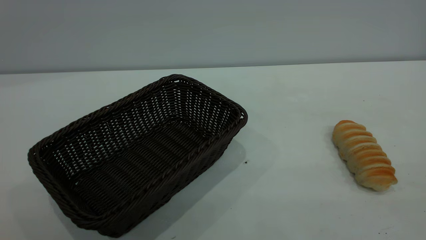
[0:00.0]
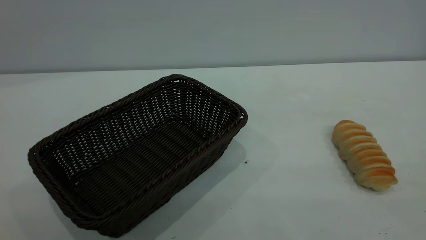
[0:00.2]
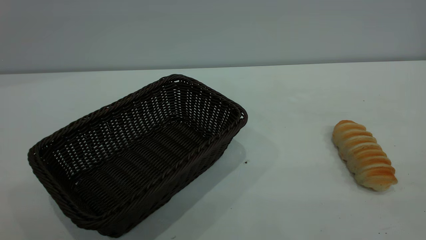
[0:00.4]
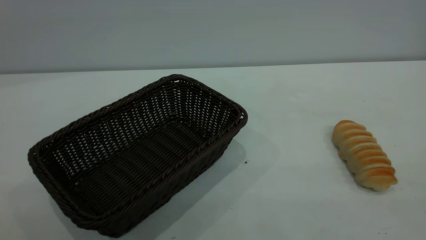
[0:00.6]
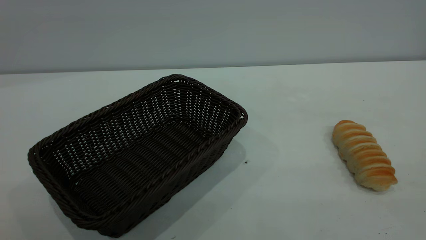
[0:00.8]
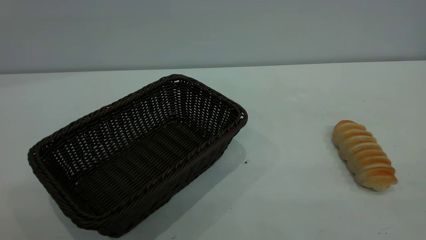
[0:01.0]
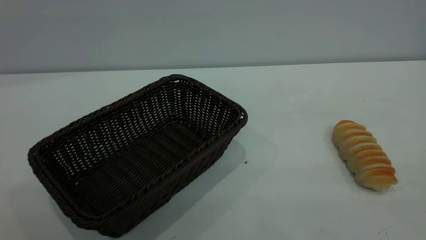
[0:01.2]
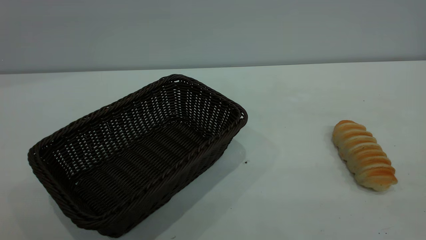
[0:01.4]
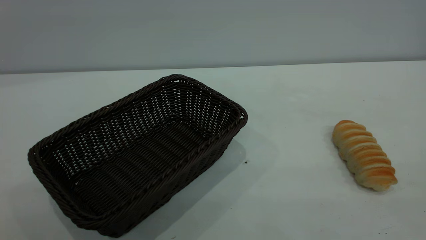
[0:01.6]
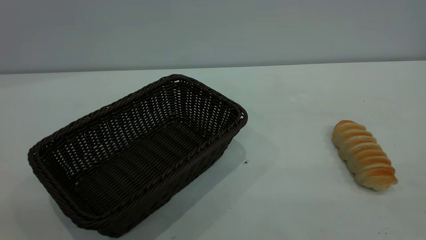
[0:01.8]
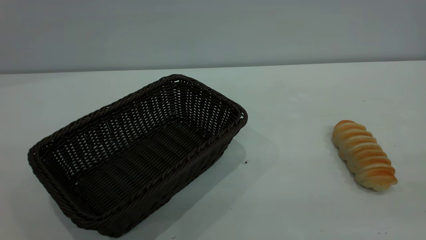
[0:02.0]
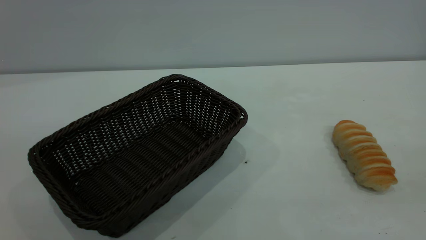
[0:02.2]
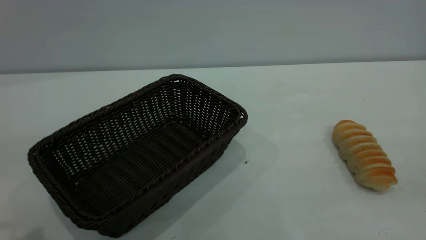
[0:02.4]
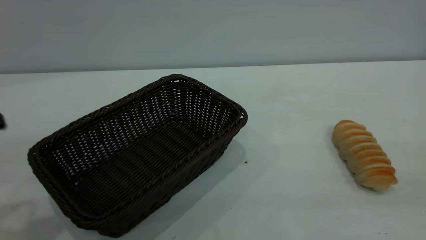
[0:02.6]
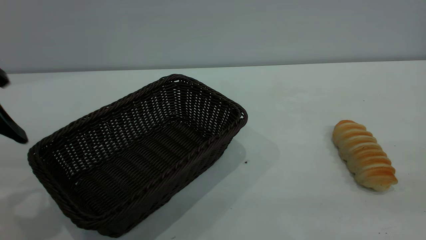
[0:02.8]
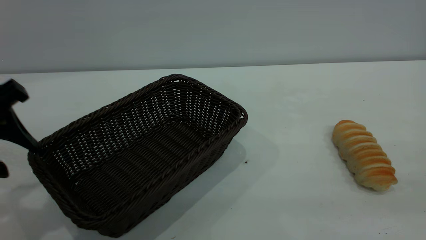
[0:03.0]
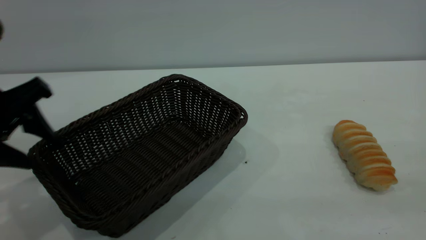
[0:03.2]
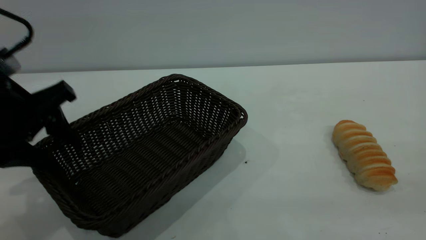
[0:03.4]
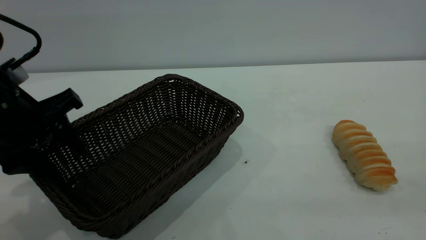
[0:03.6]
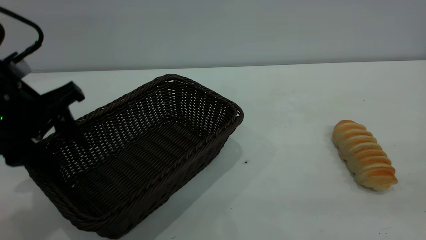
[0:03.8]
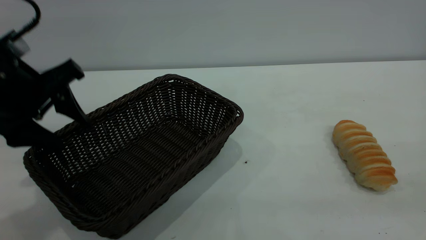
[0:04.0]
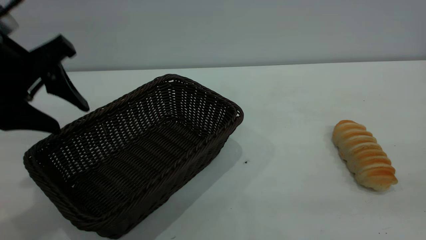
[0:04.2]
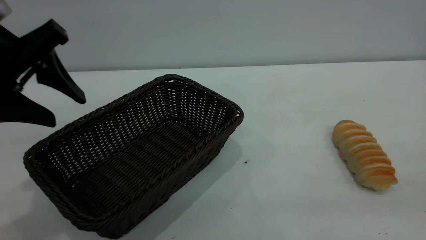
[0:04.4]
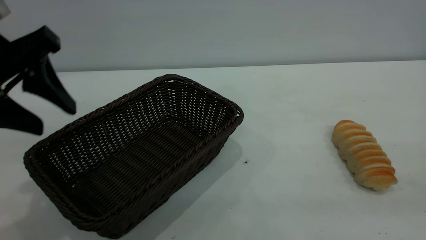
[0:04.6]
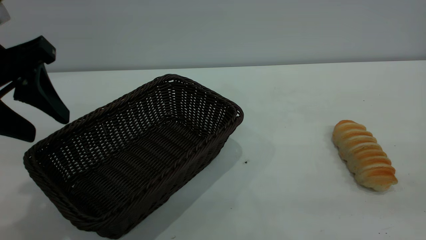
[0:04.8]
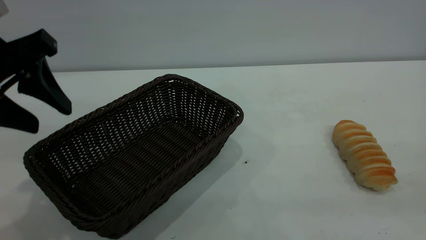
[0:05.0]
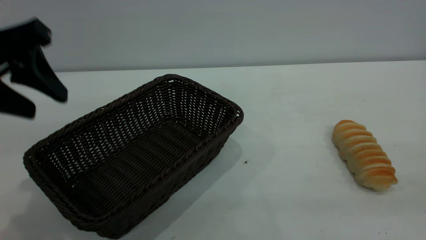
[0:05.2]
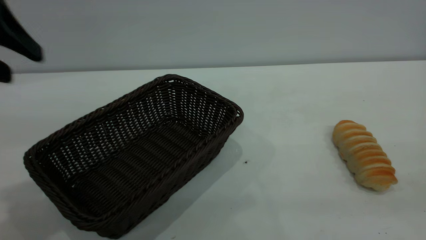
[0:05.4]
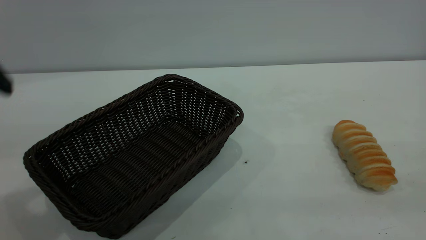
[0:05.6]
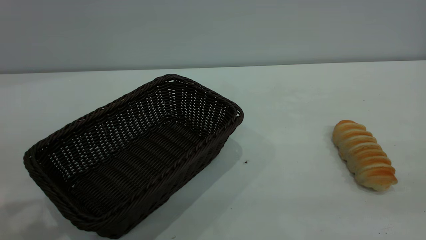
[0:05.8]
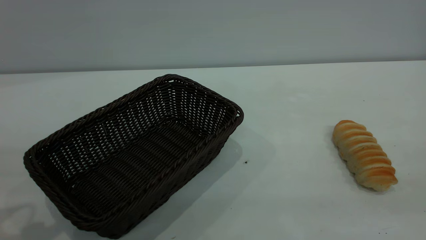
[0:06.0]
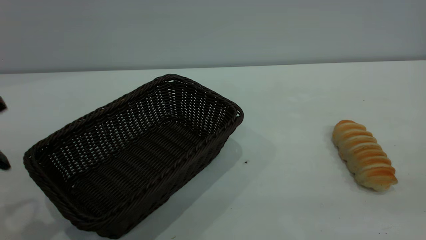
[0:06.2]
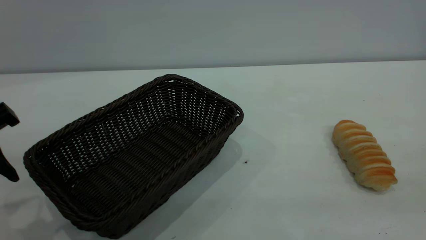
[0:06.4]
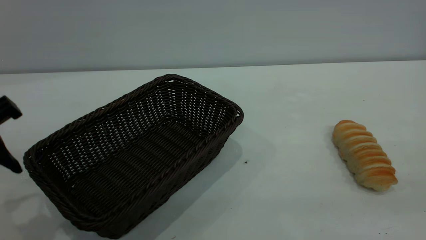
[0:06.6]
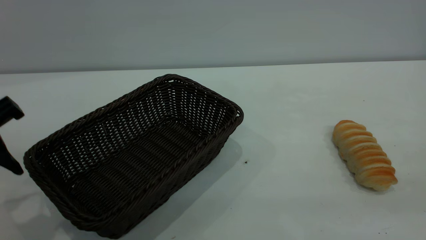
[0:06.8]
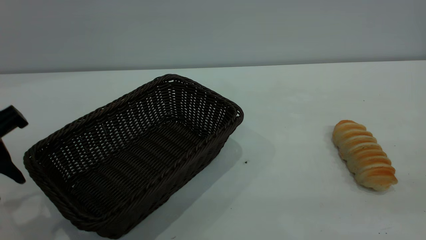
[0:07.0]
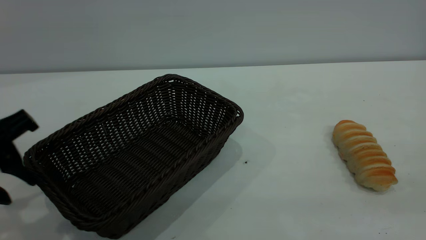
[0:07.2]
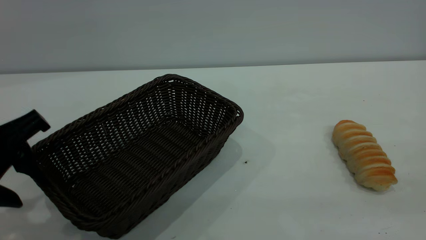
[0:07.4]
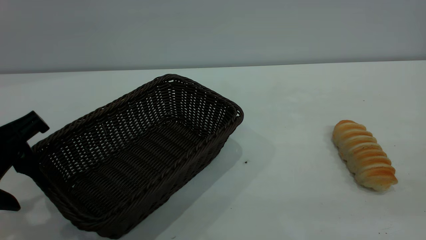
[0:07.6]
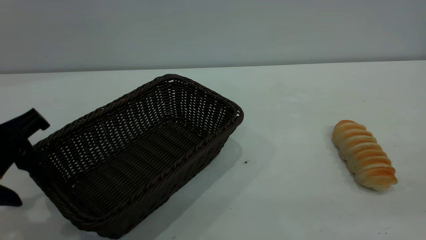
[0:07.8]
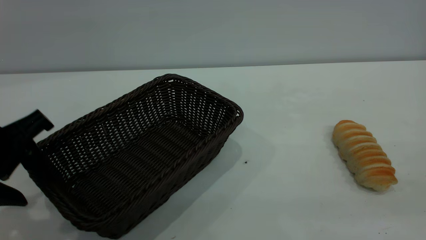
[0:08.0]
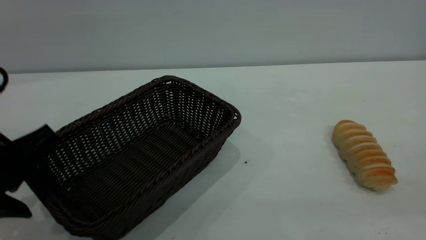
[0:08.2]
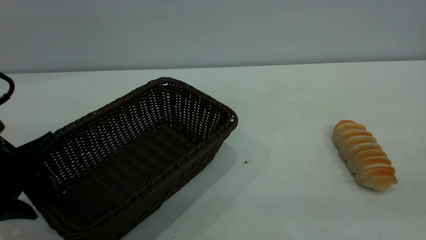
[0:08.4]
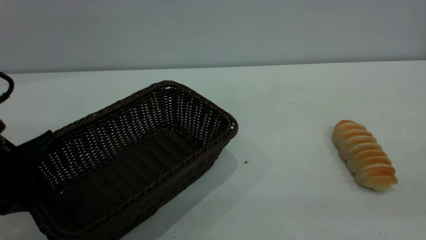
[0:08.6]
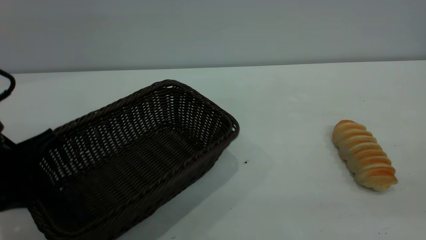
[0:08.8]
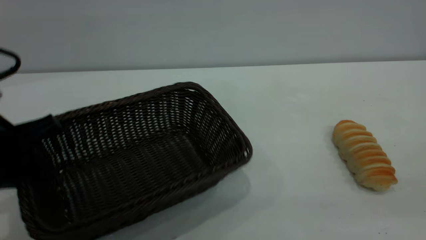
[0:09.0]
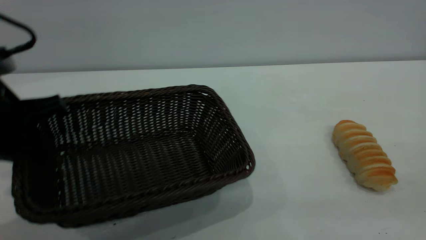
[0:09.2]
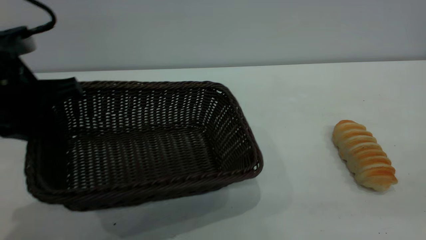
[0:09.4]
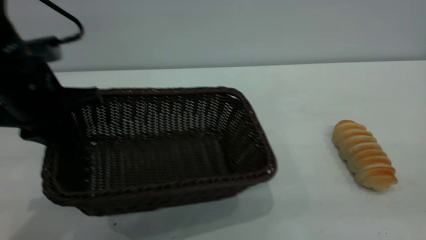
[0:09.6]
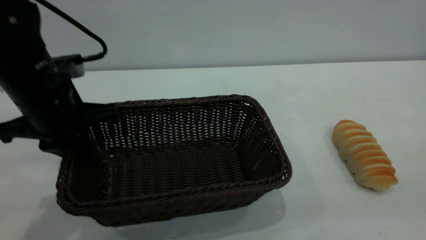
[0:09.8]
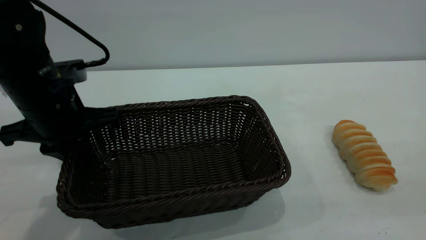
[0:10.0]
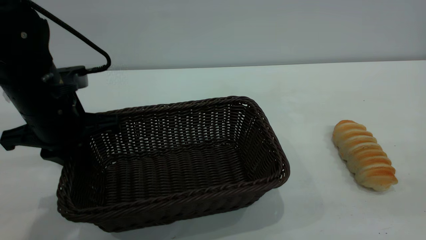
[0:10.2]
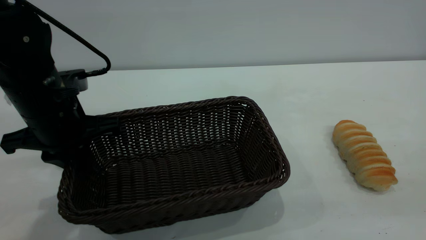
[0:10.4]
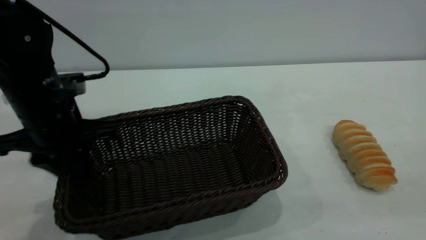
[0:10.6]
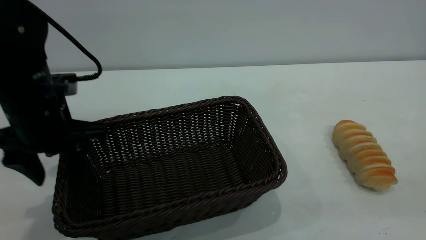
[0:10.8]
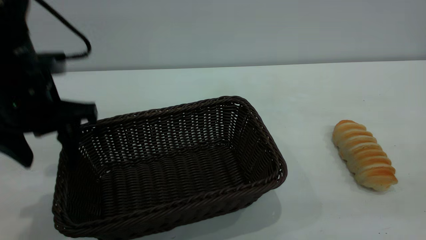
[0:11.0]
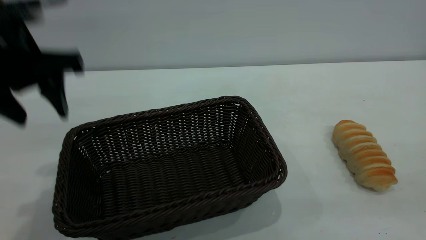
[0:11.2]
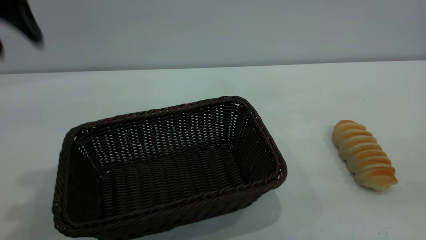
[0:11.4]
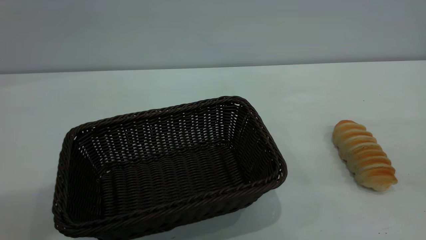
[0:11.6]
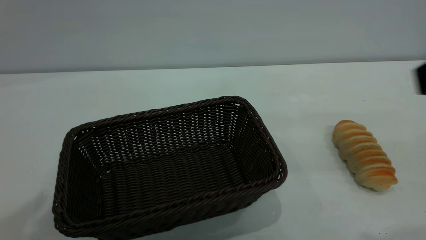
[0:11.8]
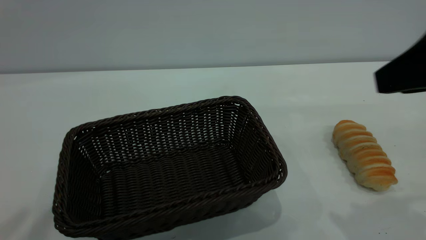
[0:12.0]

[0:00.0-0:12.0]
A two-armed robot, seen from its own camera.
Task of the whole recording: One hand grasps the black basket and places it in the middle of the table, while the other hand picks up the long bread and puts it into the black basket.
Step, 0:00.0 to 0:11.0: Move the basket to the center of view.
0:00.0 to 0:01.6: Both grippers stay put.
0:01.6 to 0:03.0: The left gripper goes about 30 cm forward and downward.
0:03.0 to 0:04.4: The left gripper heads upward, covering approximately 5 cm.
0:04.4 to 0:06.0: The left gripper travels backward by about 5 cm.
0:06.0 to 0:07.6: The left gripper goes roughly 5 cm downward.
0:07.6 to 0:09.0: The left gripper closes.
0:09.0 to 0:10.4: The left gripper moves forward and to the right, some 10 cm.
0:10.4 to 0:12.0: The left gripper moves upward and backward, roughly 35 cm, and opens its fingers. The right gripper goes some 20 cm forward and downward.

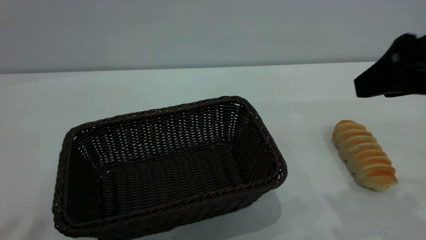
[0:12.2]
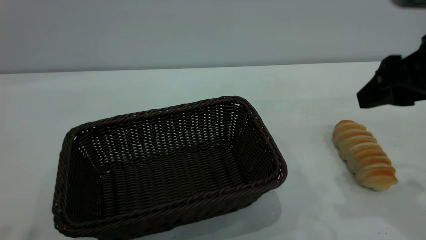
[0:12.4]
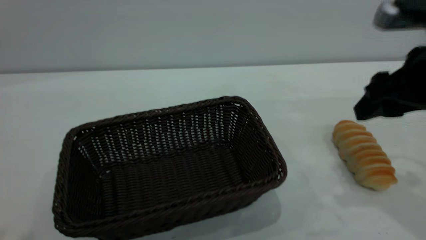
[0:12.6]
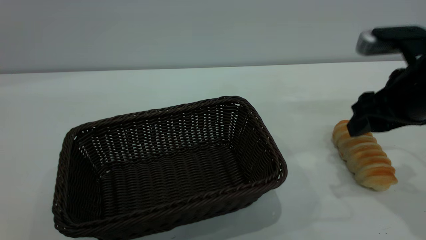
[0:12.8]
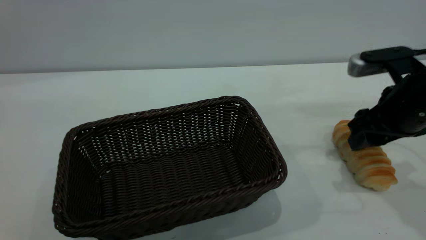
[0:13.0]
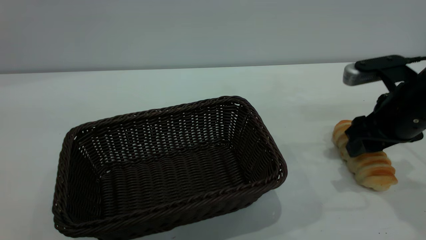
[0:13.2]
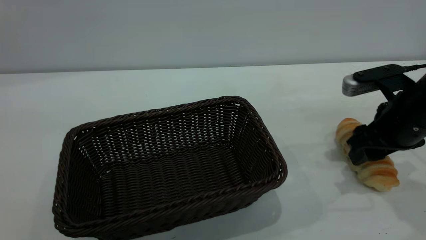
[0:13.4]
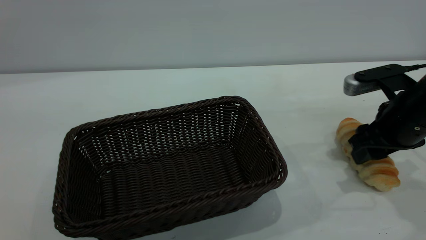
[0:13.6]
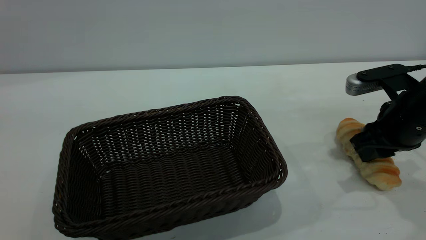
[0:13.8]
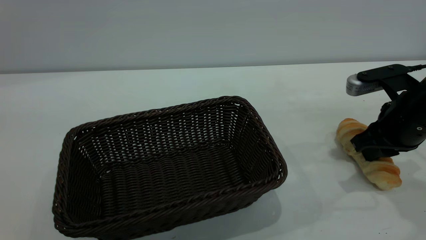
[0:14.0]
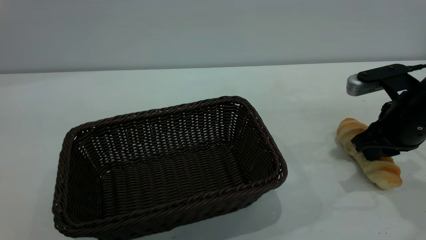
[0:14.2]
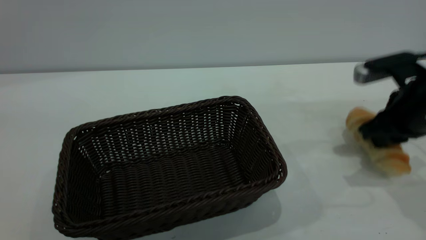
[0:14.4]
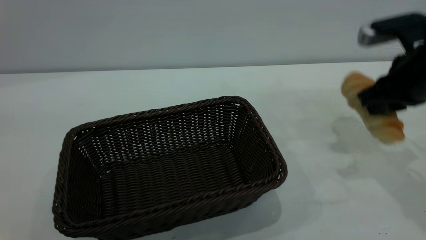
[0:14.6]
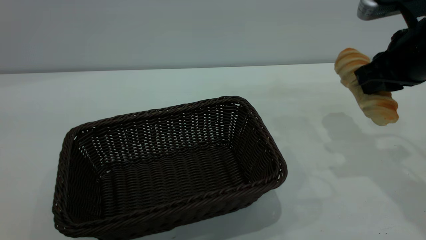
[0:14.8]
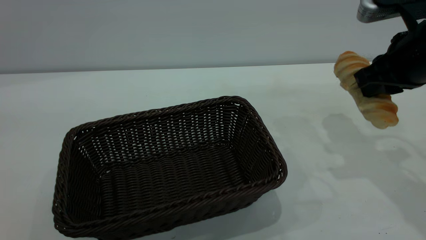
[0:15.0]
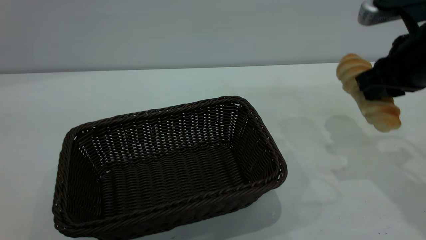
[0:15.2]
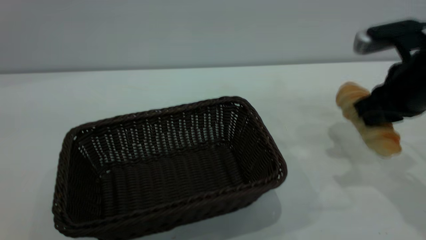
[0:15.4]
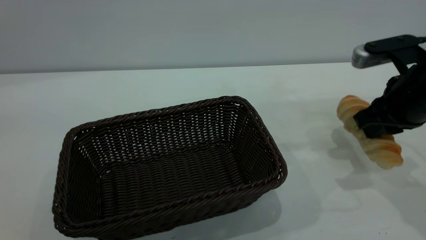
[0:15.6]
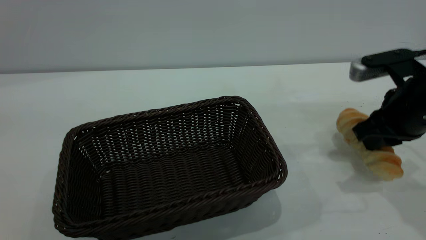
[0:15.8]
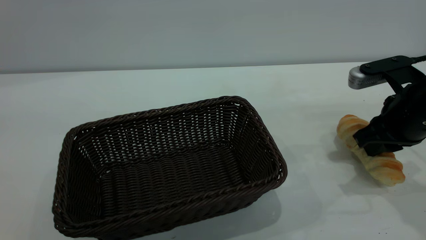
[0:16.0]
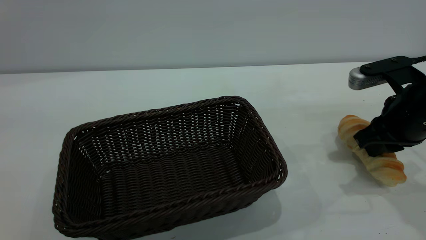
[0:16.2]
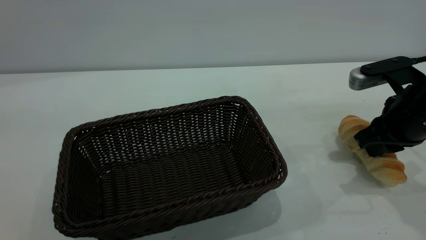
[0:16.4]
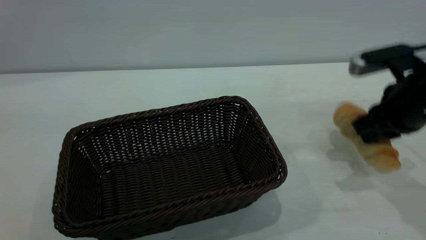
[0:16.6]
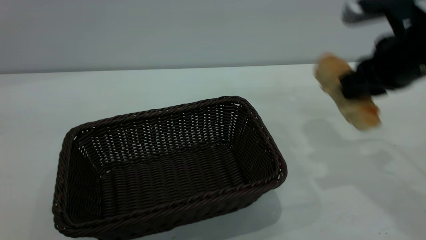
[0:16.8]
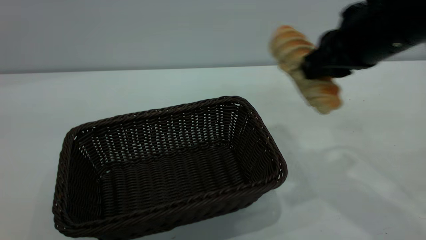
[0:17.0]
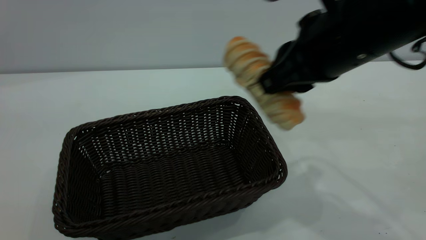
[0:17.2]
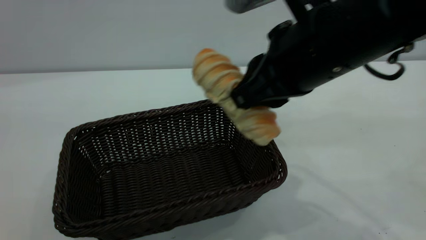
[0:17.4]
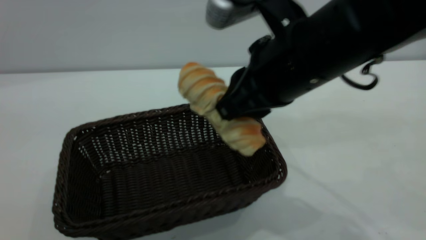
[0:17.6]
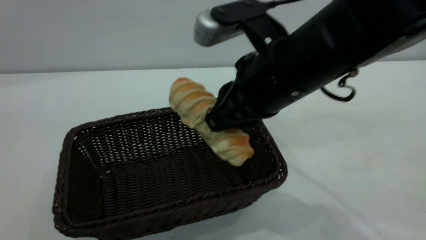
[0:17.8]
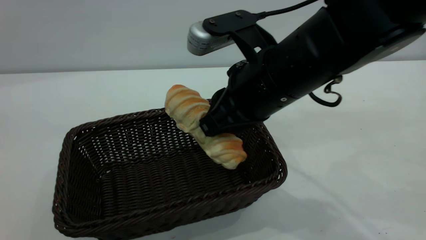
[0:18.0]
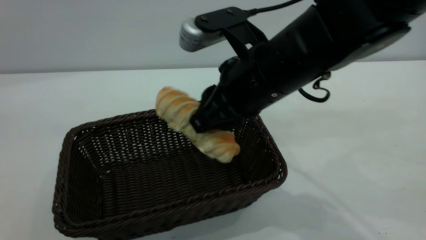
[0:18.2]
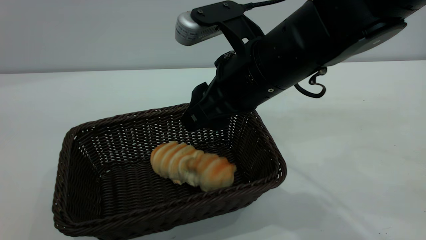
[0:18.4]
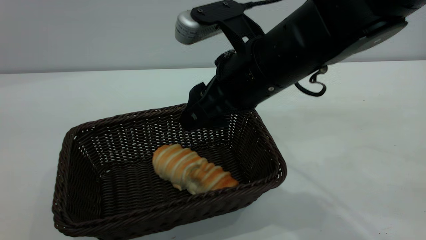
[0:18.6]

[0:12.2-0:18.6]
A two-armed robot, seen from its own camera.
Task of the whole recording: One hand grasps the black basket and places it in the middle of the table, while the other hand picks up the long bread and puts it into the black basket.
0:12.2 to 0:13.8: The right gripper moves downward and forward, roughly 15 cm, and closes up.
0:13.8 to 0:15.4: The right gripper is displaced upward by some 5 cm.
0:15.4 to 0:17.0: The right gripper moves to the left and upward, about 10 cm.
0:17.0 to 0:18.6: The right gripper travels to the left by some 10 cm, and opens its fingers.
